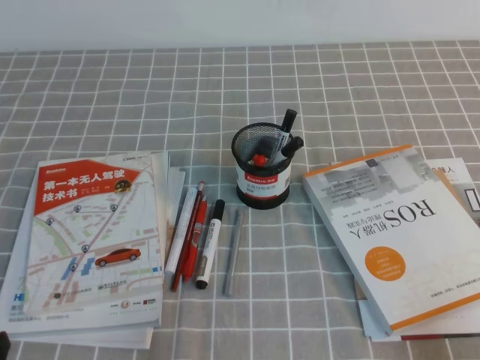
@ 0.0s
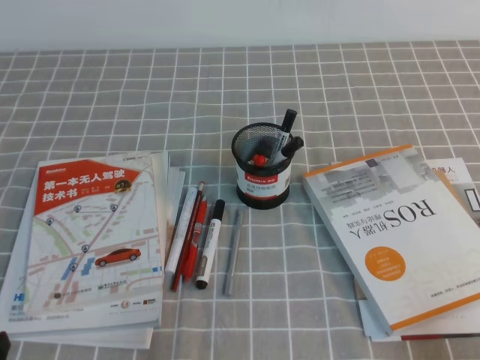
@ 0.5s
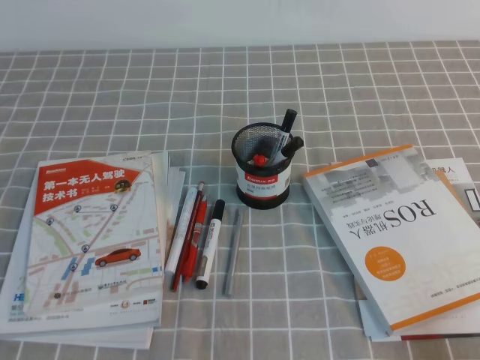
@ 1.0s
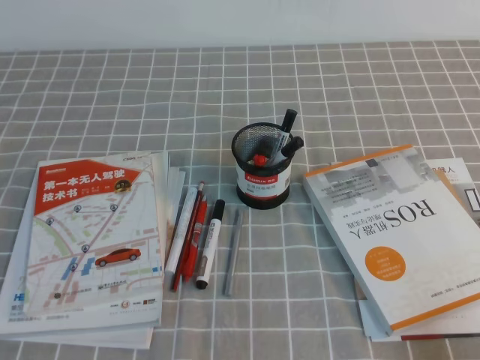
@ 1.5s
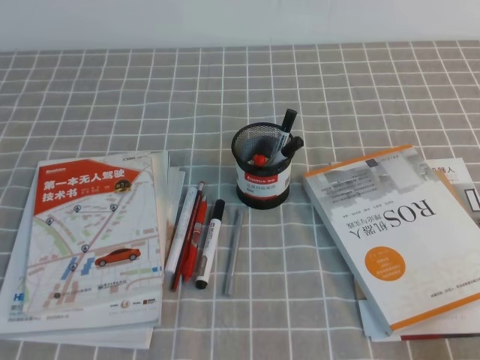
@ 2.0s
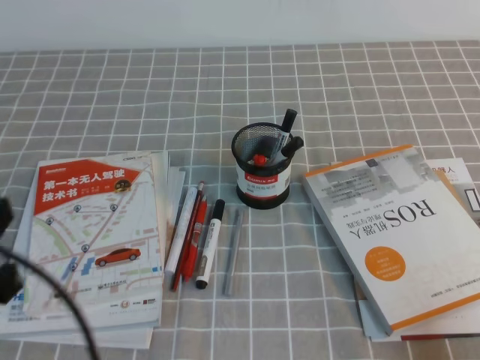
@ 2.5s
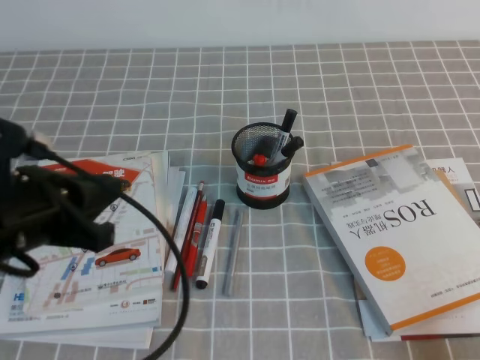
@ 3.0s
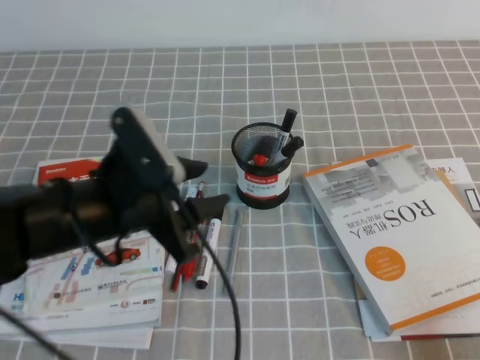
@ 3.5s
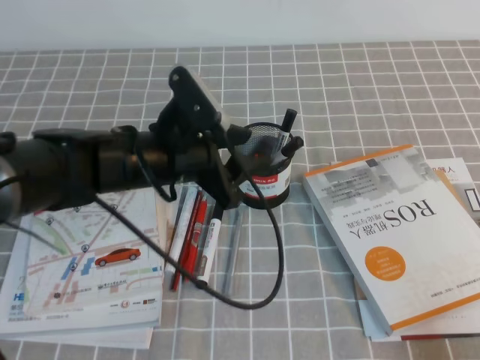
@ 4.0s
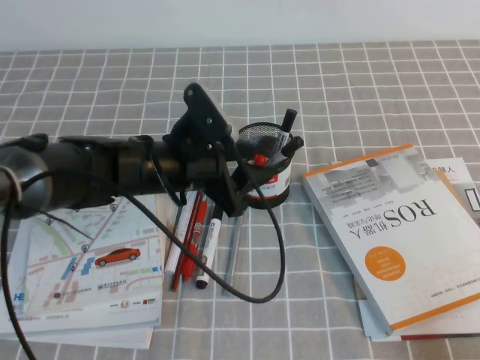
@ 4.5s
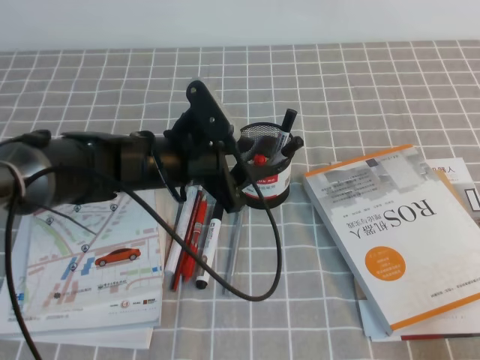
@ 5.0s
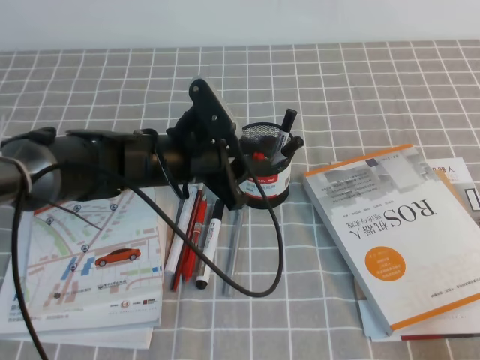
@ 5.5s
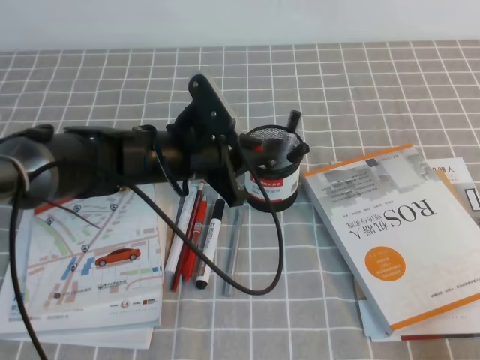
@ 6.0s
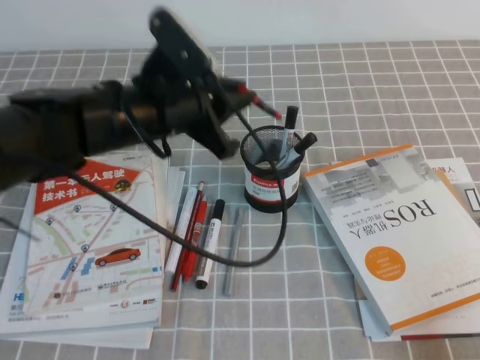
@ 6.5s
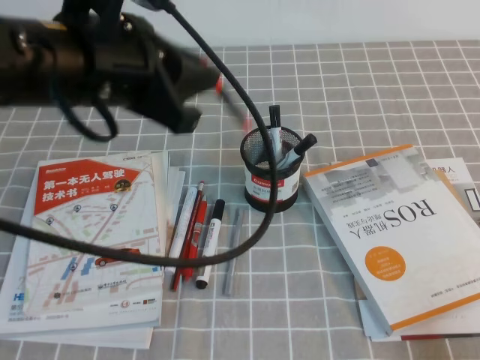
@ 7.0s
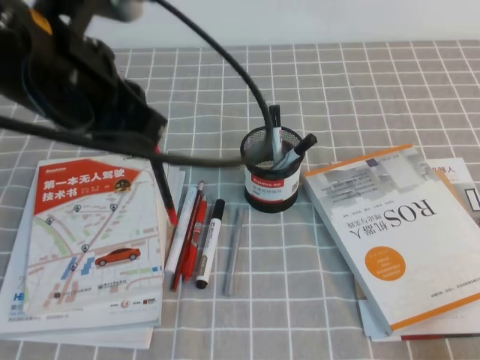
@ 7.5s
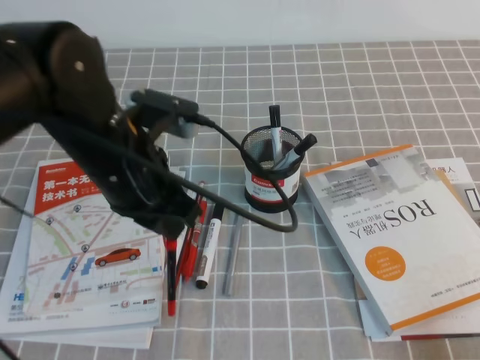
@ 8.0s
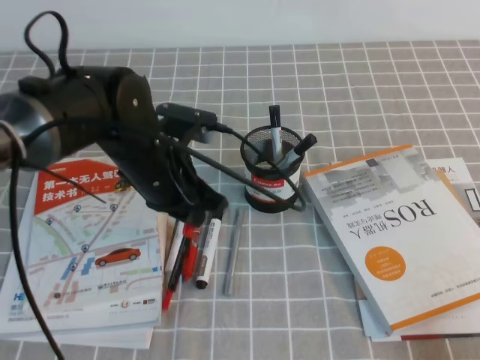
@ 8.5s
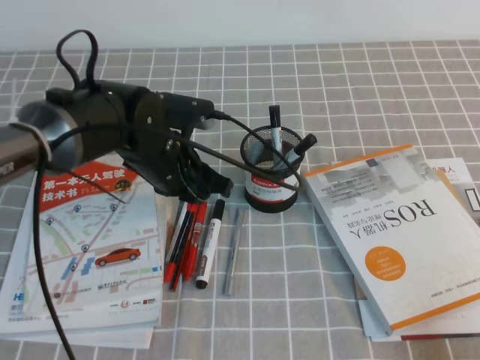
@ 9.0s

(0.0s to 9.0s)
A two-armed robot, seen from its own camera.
2.0s - 4.5s: The left gripper shifts some 35 cm forward and to the right, and opens up.
4.5s - 7.0s: The left gripper heads upward, covering roughly 15 cm, and closes.
7.0s - 9.0s: The left gripper moves downward and forward, about 20 cm.

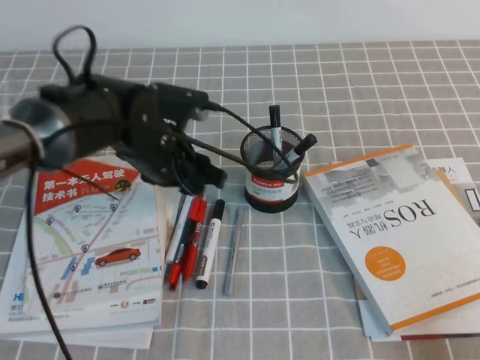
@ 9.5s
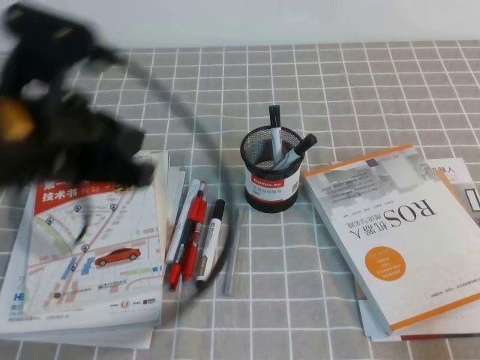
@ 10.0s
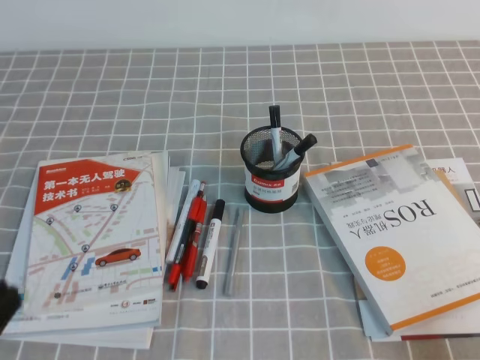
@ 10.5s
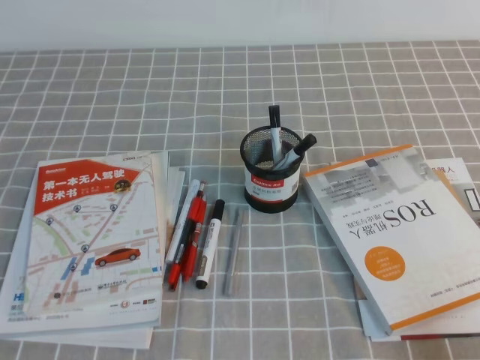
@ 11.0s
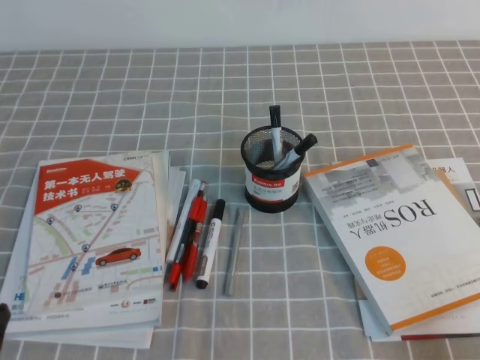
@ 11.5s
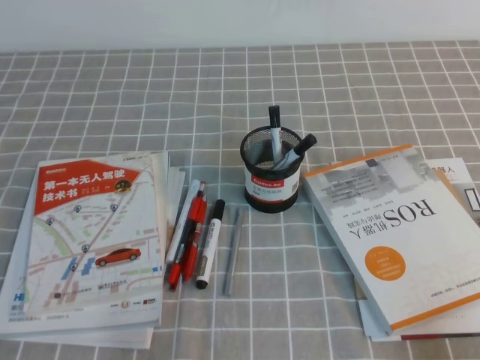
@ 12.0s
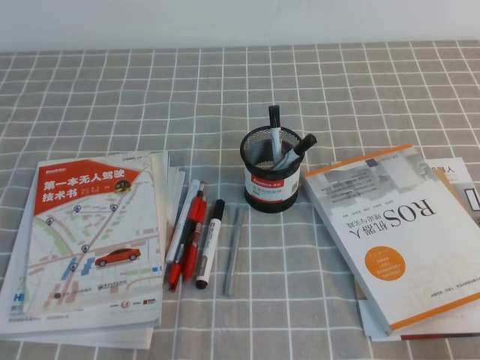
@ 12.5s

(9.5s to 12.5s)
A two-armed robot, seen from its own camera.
Step, 9.5s - 12.5s: Pick up the pen from the pen holder.
9.5s - 11.0s: The left gripper moves backward and to the left, some 40 cm, and closes.
11.0s - 12.5s: The left gripper goes approximately 10 cm downward.

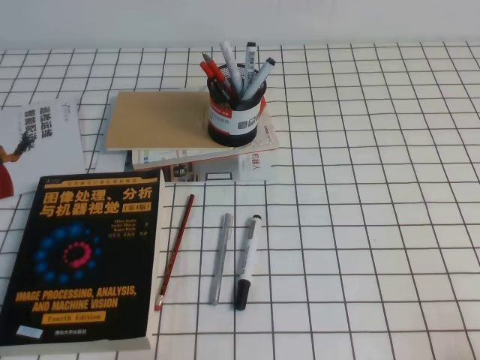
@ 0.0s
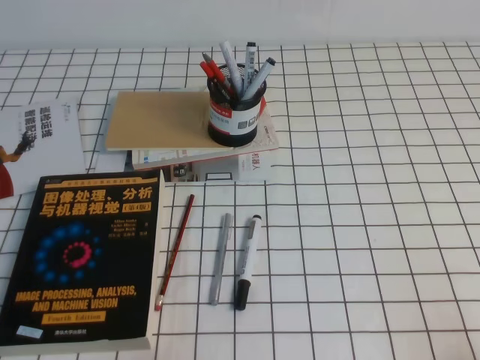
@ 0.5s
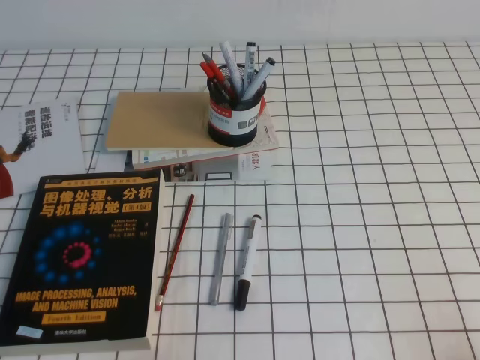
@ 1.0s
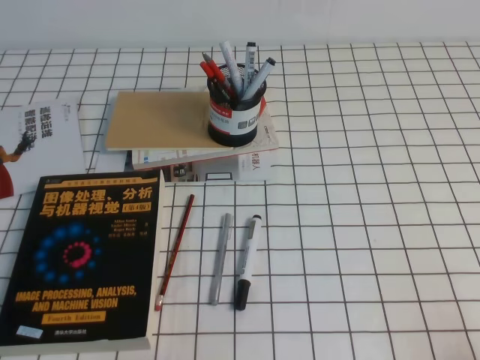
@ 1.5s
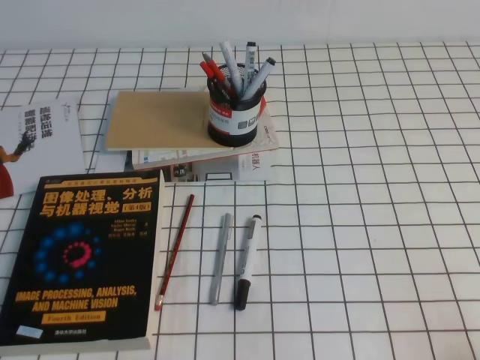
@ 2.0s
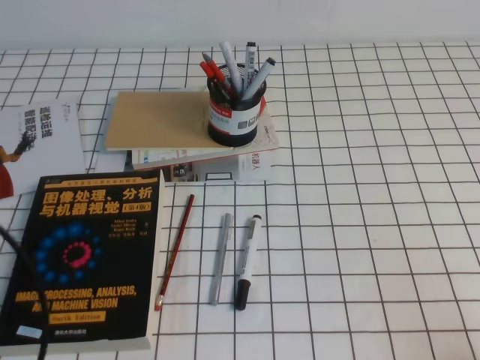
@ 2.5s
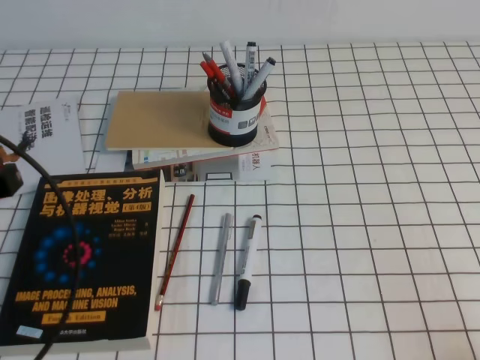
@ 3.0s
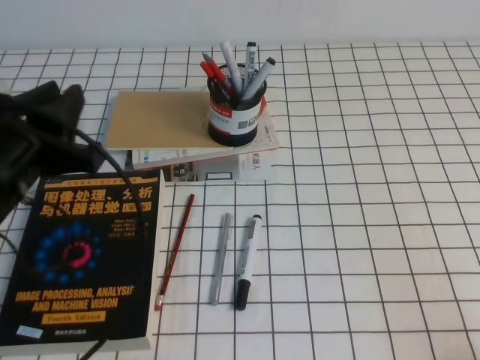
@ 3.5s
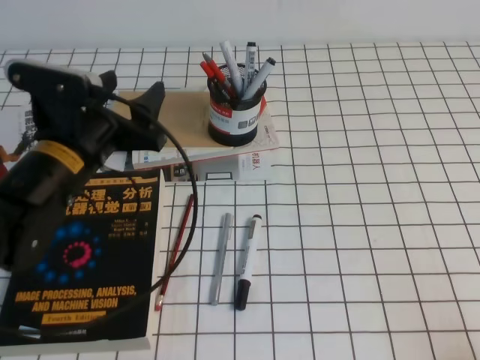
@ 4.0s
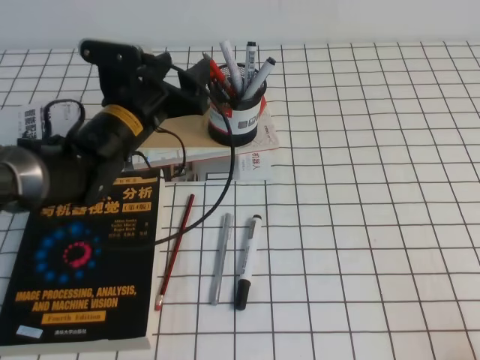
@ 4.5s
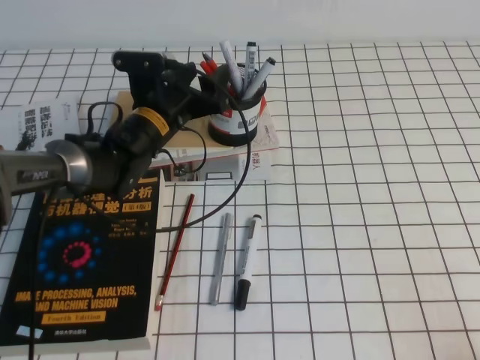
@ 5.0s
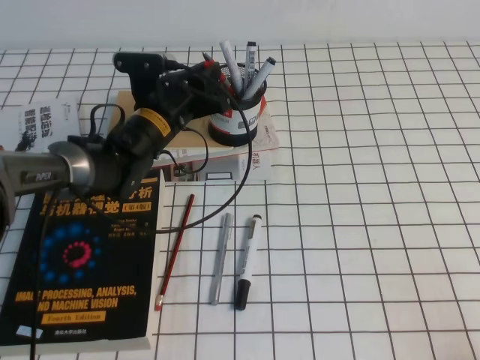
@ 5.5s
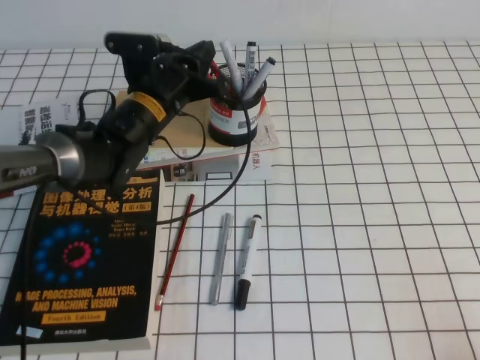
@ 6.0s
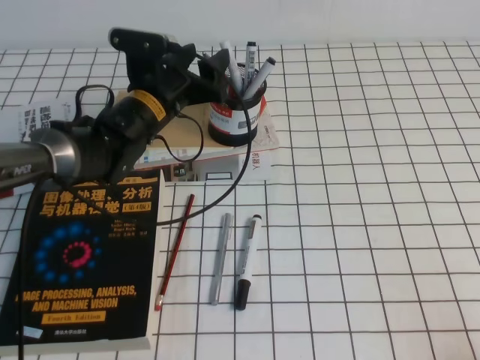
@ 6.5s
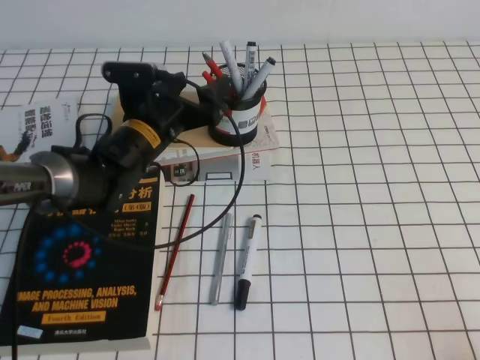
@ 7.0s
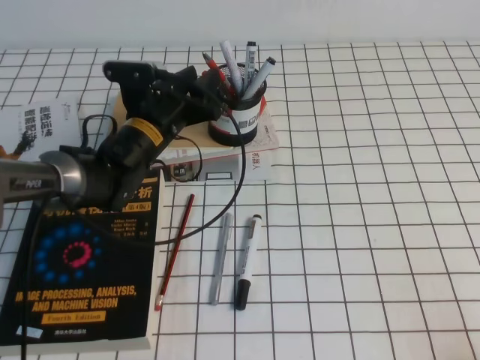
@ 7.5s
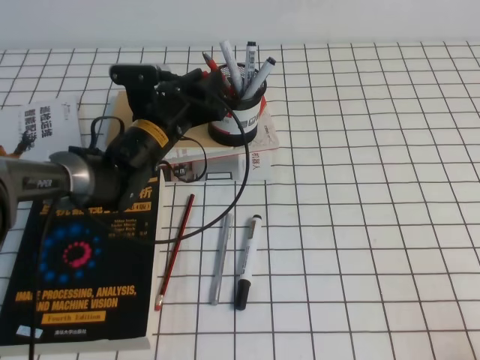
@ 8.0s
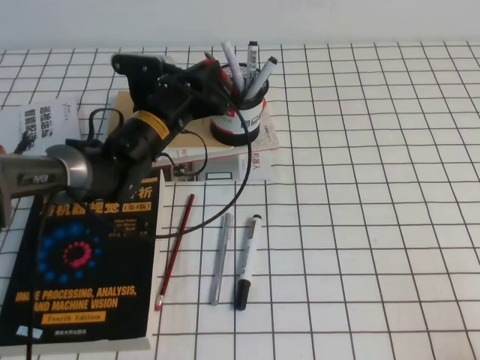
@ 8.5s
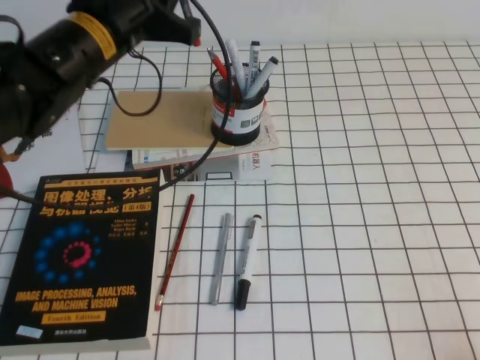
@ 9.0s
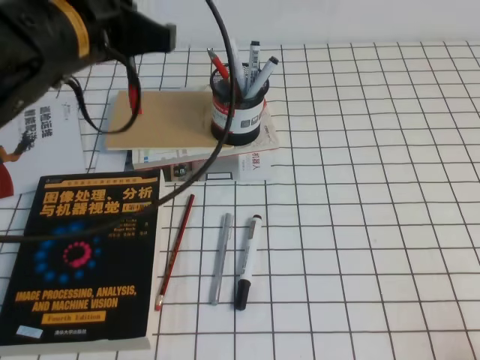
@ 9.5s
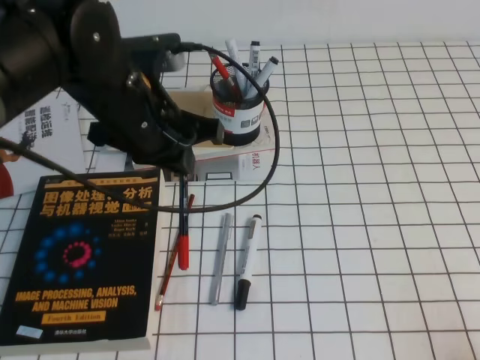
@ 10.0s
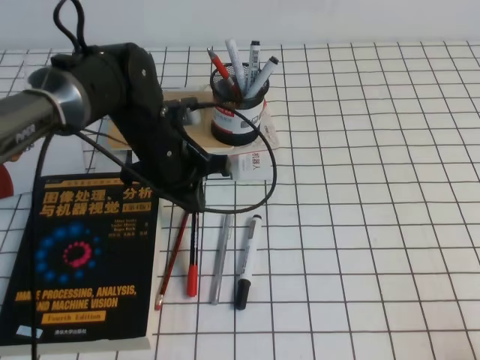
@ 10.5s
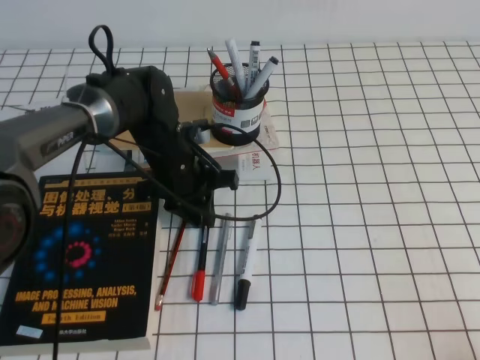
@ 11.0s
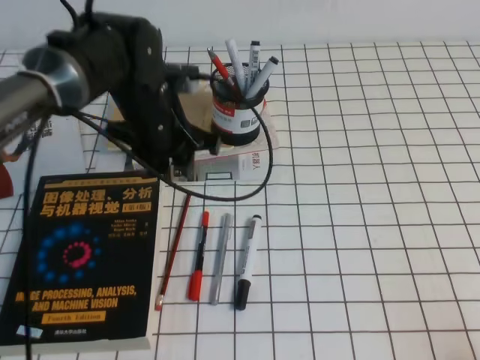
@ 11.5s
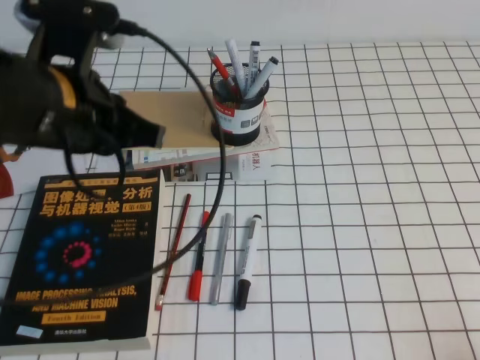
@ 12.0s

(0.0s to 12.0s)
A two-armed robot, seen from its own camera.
2.0s - 4.0s: The left gripper shifts approximately 25 cm forward and to the right, and opens.
4.0s - 6.0s: The left gripper moves forward and to the right, approximately 15 cm, and closes.
6.0s - 8.0s: The left gripper opens, then closes again.
8.0s - 10.0s: The left gripper is displaced upward and backward by about 15 cm.
10.0s - 12.0s: The left gripper travels backward by about 5 cm, and goes downward and returns, approximately 15 cm each way.

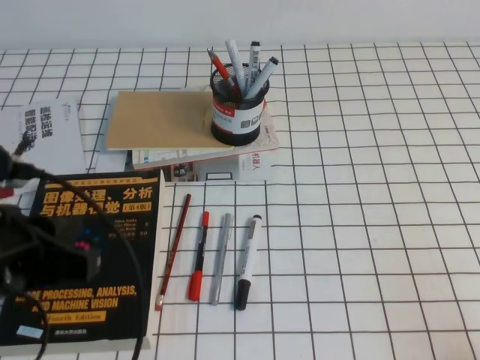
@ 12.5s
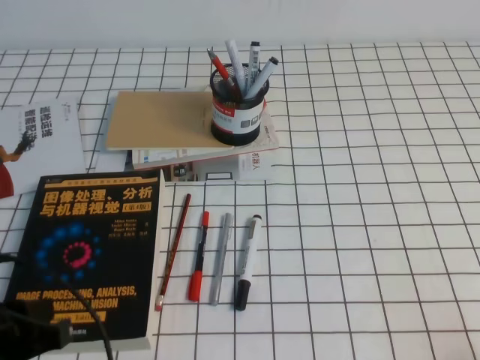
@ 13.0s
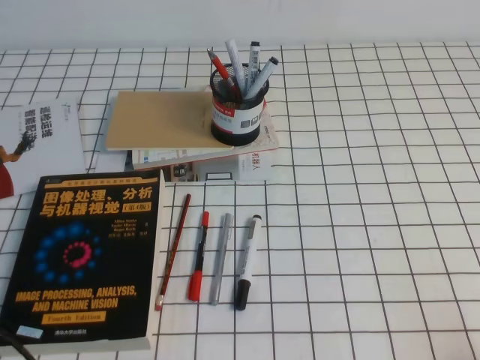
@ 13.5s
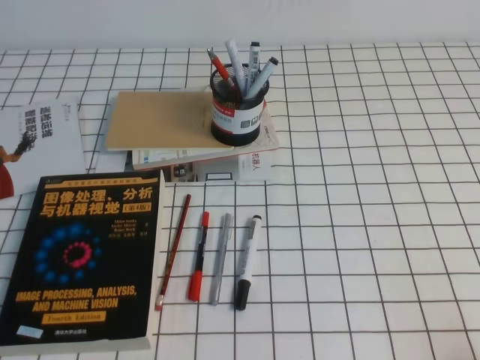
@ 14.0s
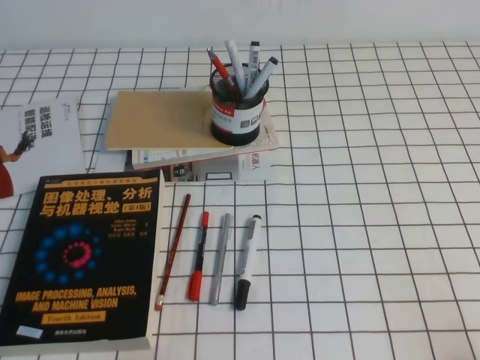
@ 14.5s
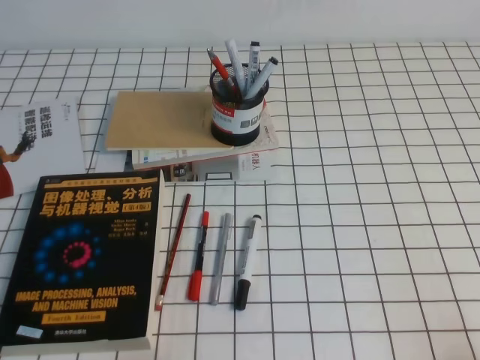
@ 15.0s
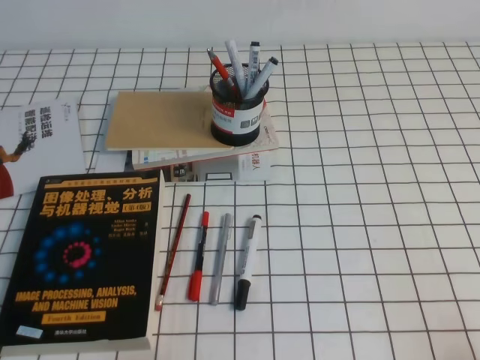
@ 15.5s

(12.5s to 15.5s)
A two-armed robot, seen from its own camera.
Step, 12.5s - 15.5s: Pick up the pen from the pen holder.
12.5s - 14.0s: The left gripper heads backward, to the left and downward, covering some 15 cm.
